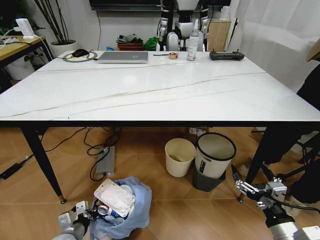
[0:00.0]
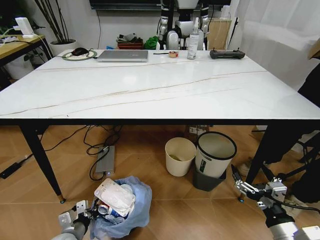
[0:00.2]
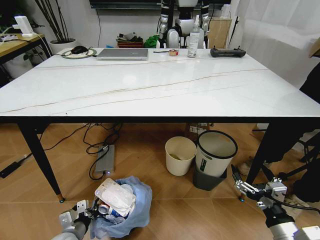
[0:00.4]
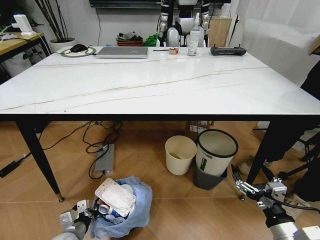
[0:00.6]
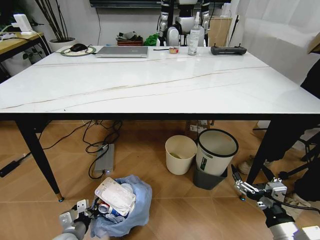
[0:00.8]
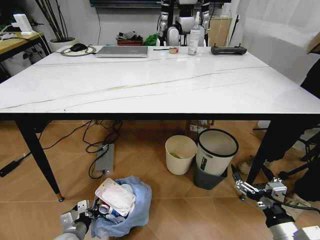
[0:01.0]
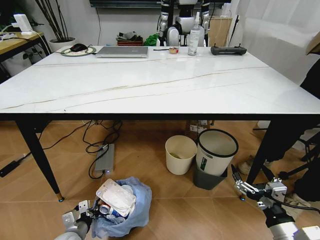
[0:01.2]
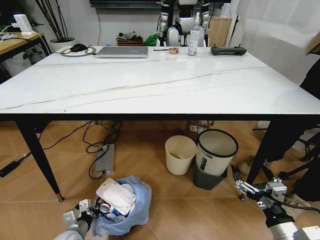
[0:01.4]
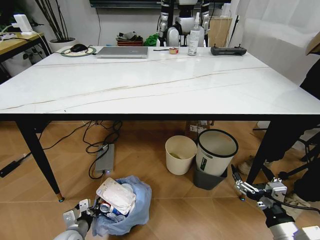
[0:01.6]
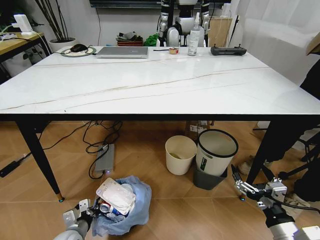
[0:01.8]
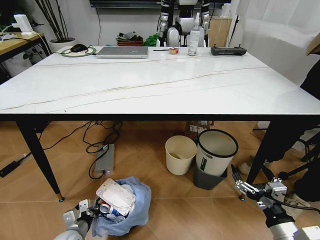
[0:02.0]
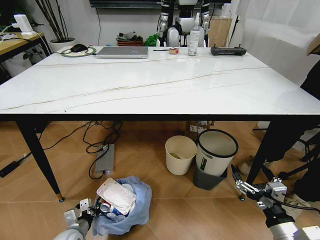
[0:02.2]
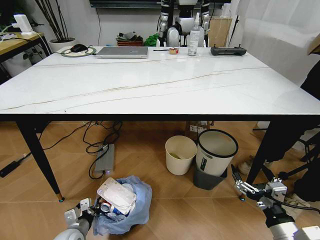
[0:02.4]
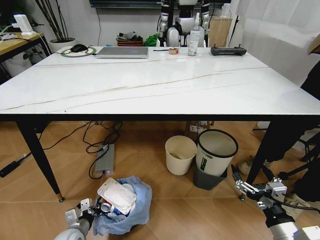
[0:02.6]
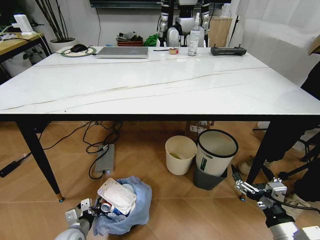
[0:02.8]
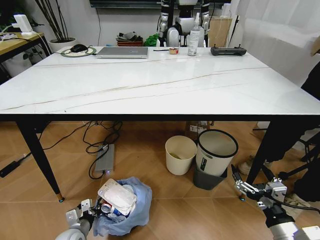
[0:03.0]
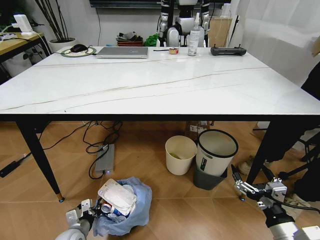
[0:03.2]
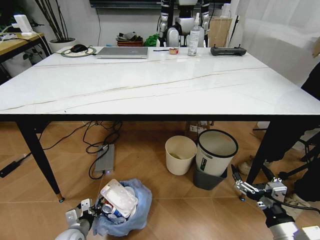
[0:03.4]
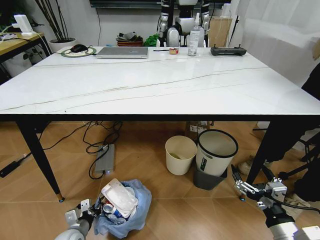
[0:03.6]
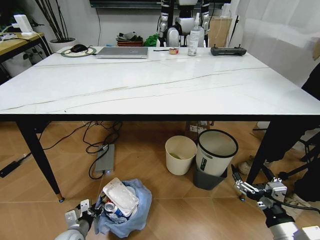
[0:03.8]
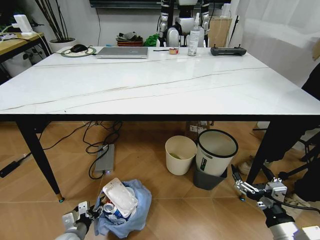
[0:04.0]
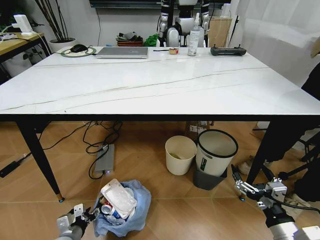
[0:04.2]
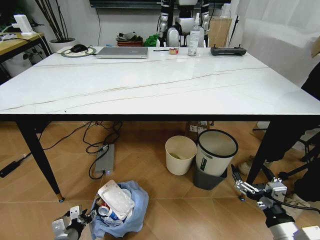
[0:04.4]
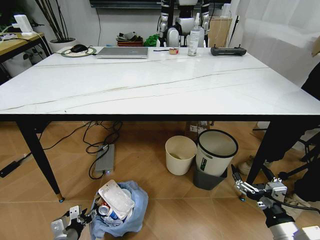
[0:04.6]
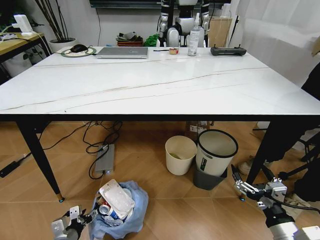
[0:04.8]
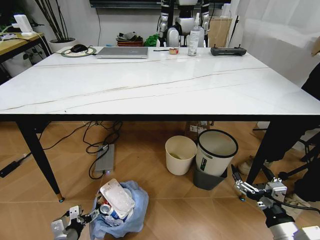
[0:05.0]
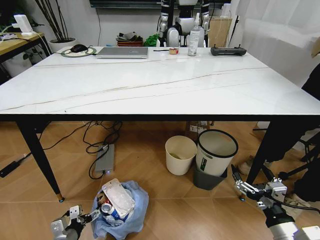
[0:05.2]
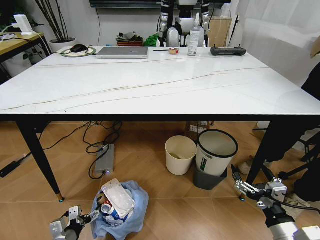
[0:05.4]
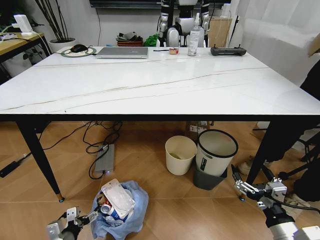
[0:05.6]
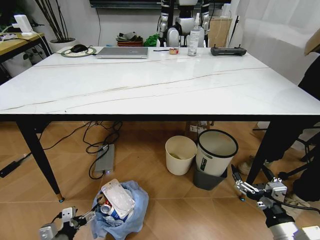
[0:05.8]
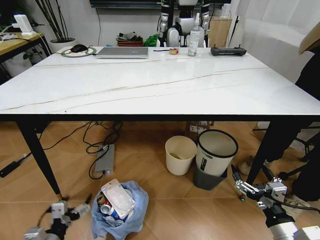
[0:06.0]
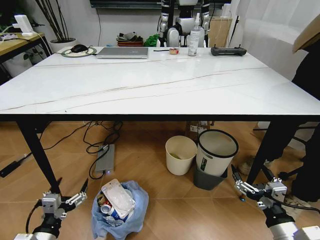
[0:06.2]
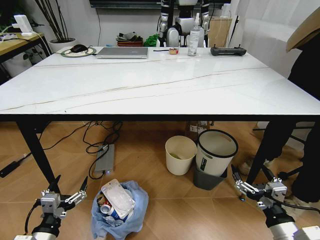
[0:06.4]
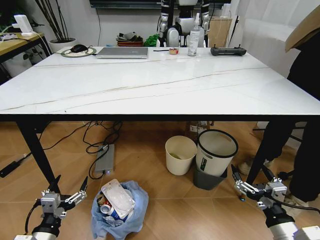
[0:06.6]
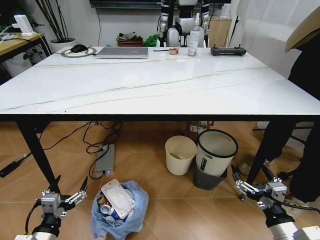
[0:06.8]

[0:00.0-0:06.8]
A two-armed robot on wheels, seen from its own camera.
Task of the whole recording: Pick up the trash bin and place the trash from the table into it.
0:01.4 to 0:02.8: The two grippers keep their place.
0:02.8 to 0:04.0: The left gripper opens.
0:04.0 to 0:05.4: The left gripper opens its fingers.
0:05.4 to 0:06.8: The left gripper travels upward and backward by approximately 15 cm.
